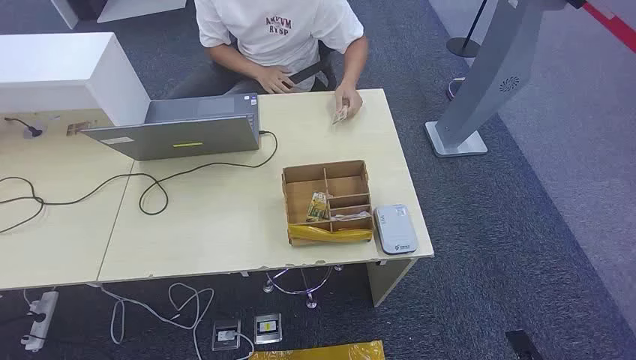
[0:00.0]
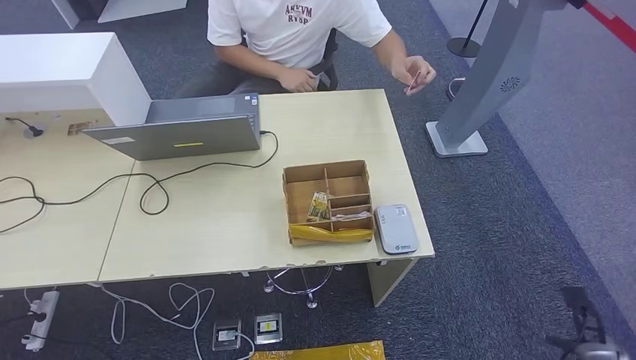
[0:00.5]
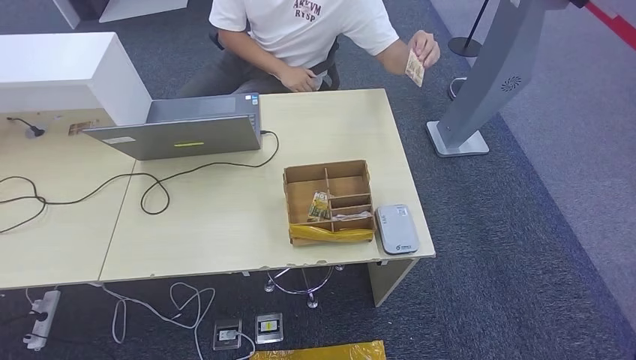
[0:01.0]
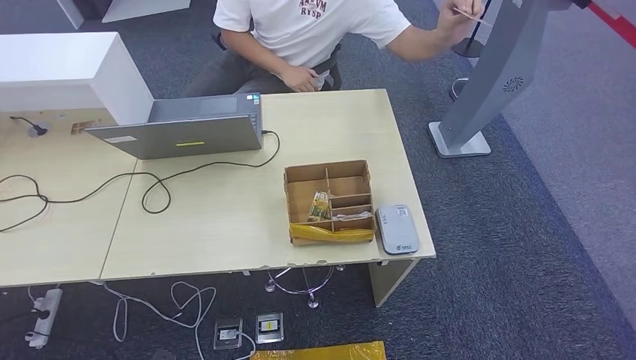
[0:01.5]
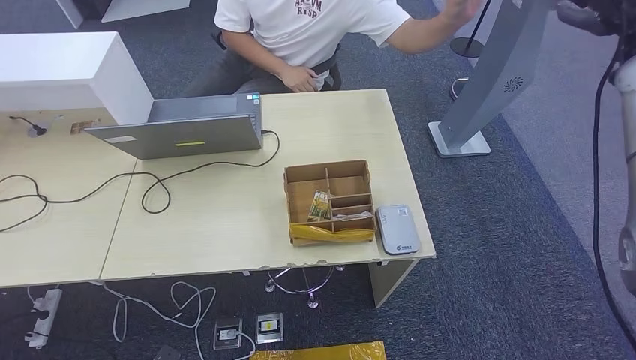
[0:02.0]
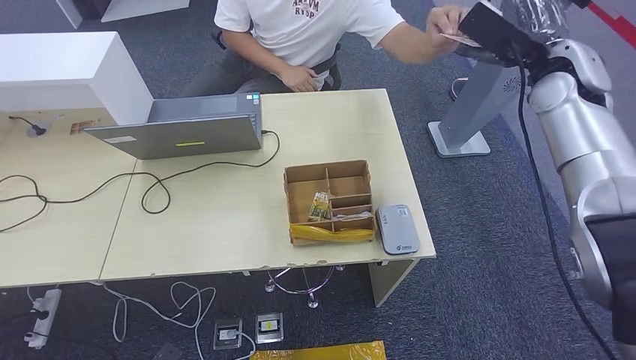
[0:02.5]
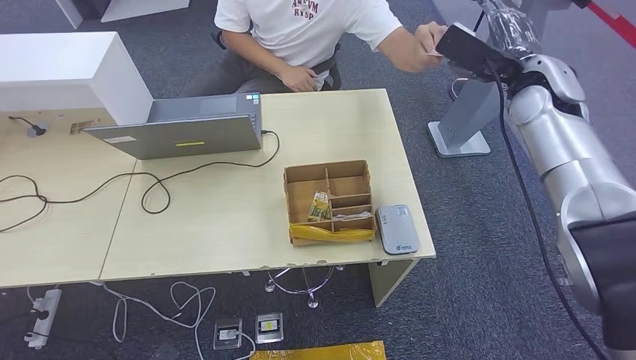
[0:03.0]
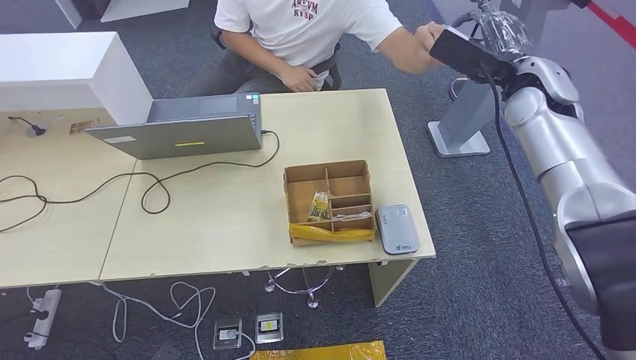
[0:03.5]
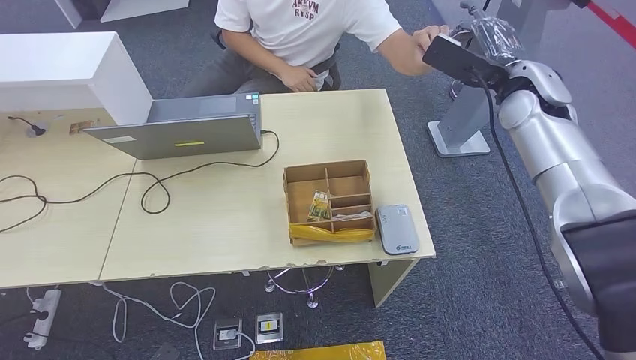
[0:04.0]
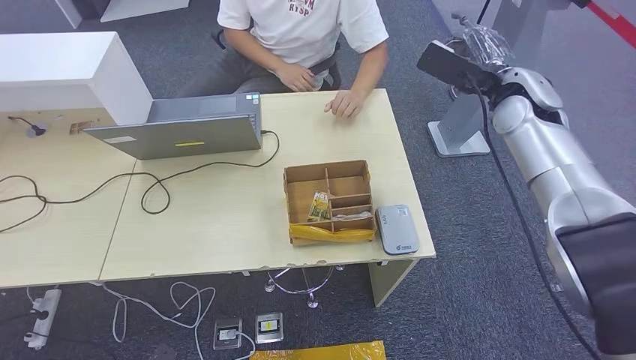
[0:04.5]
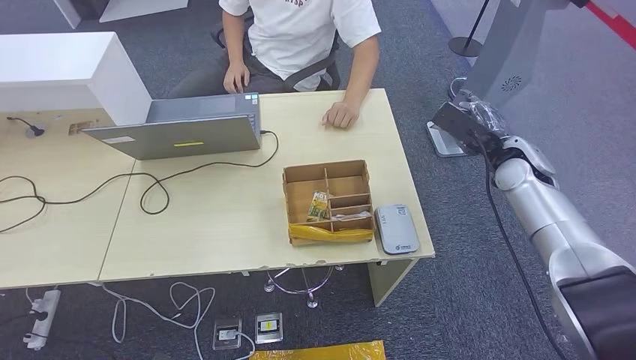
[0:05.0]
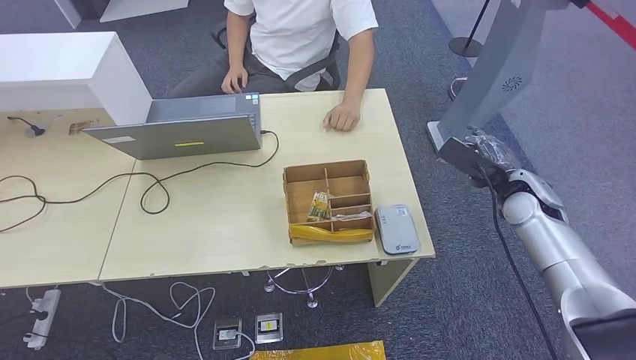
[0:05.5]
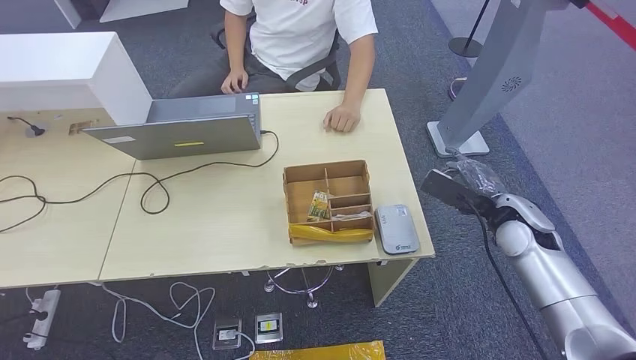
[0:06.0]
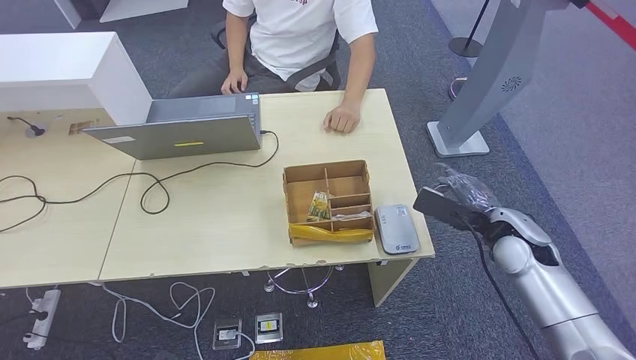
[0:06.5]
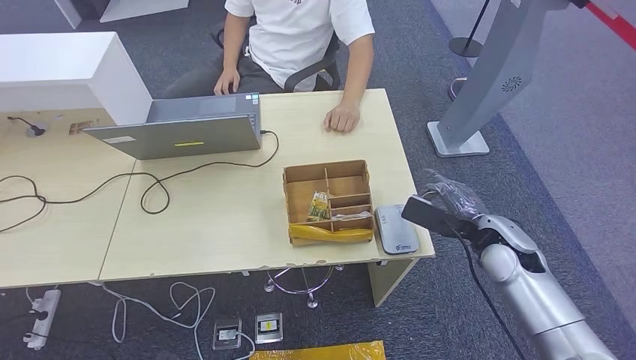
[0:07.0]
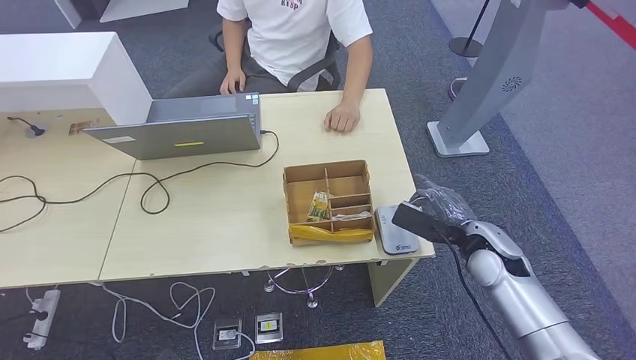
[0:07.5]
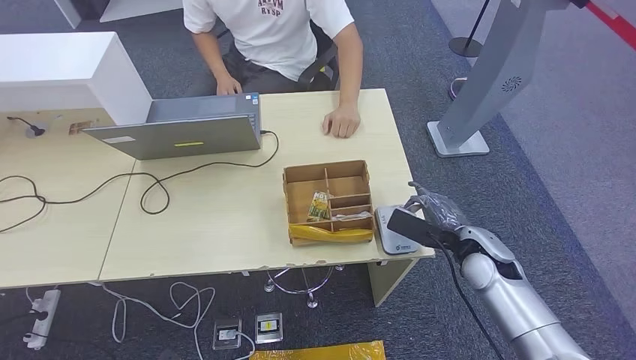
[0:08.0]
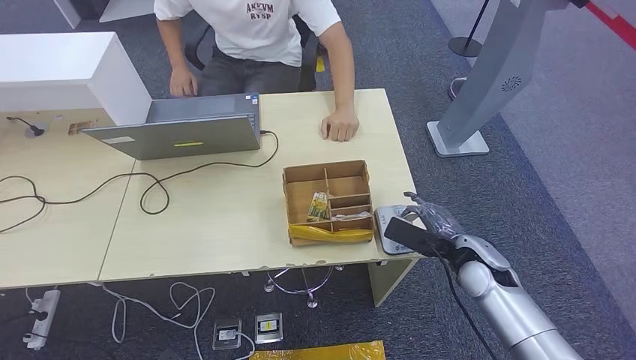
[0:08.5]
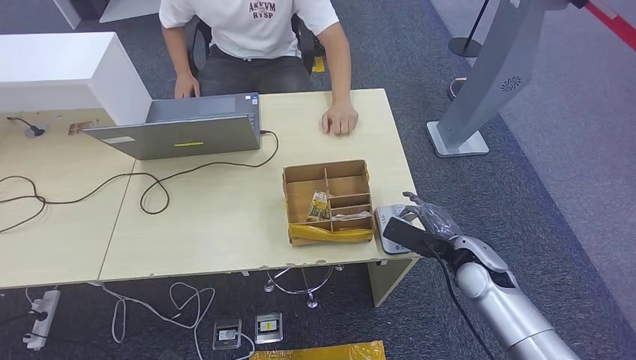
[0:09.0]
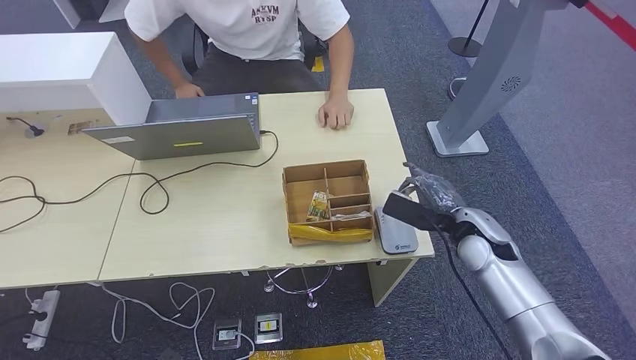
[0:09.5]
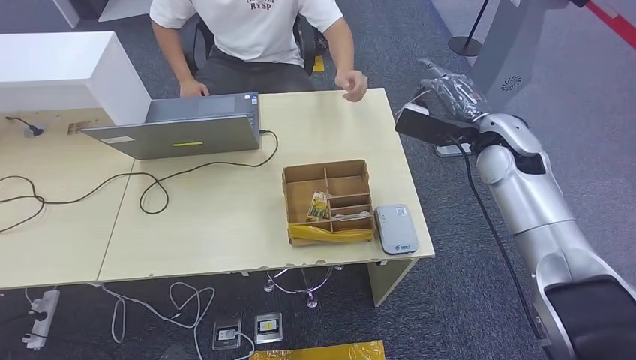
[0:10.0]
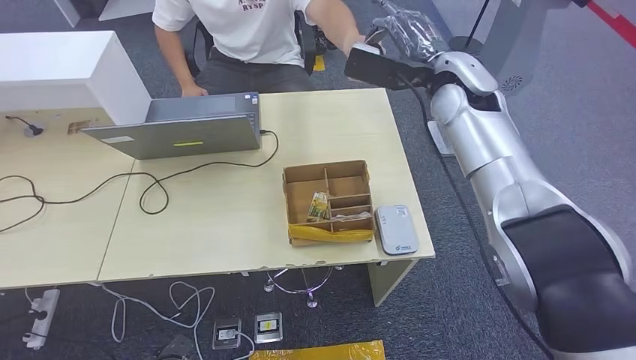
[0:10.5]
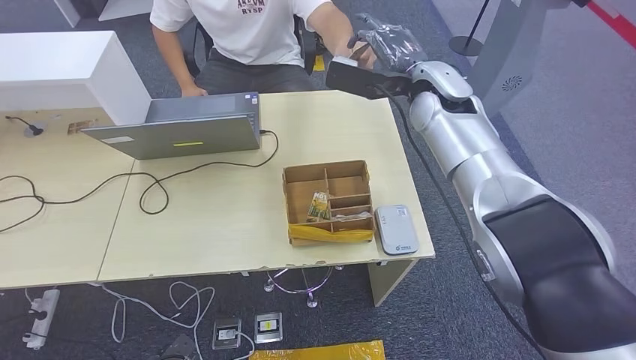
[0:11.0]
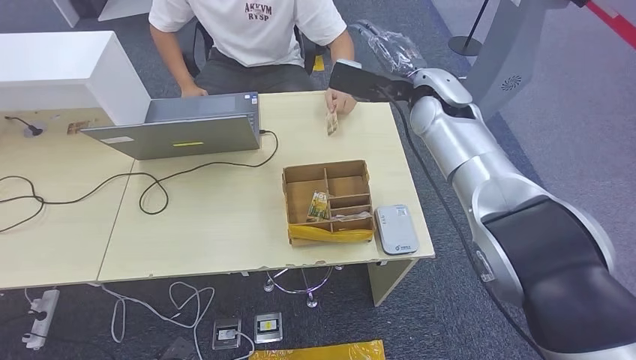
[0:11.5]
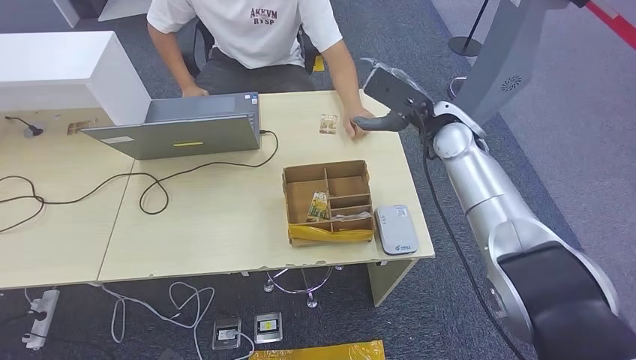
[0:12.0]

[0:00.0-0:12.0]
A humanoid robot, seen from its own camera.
Step, 0:00.0 to 0:04.5: Take the ID card from the person's hand.
Step, 0:05.0 to 0:08.5: Place the ID card on the card reader.
0:02.0 to 0:04.0: The right hand heads to the left and downward, covering approximately 15 cm.
0:04.0 to 0:06.0: The right hand moves downward and backward, approximately 20 cm.
0:06.0 to 0:08.0: The right hand shifts about 5 cm to the left.
0:08.0 to 0:10.0: The right hand heads upward and forward, covering approximately 20 cm.
0:10.0 to 0:12.0: The right hand heads to the left, covering about 5 cm.

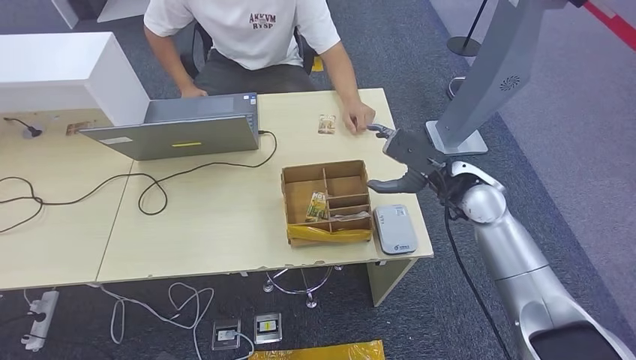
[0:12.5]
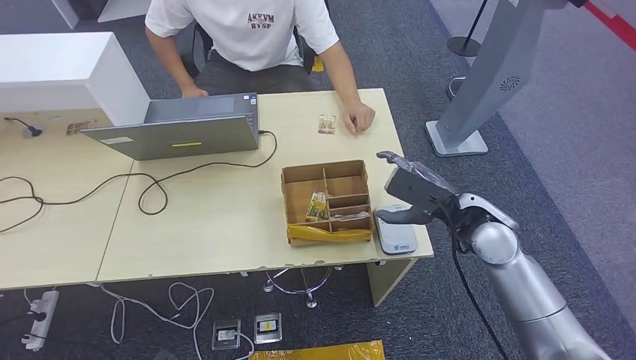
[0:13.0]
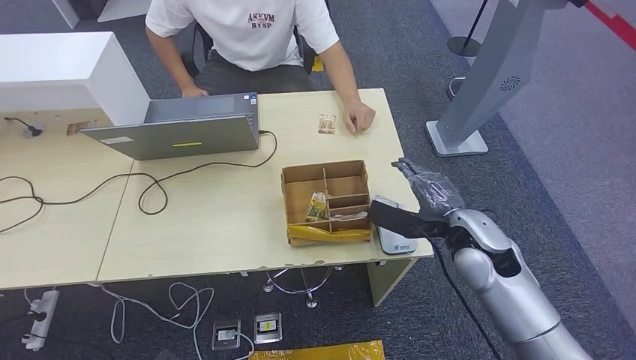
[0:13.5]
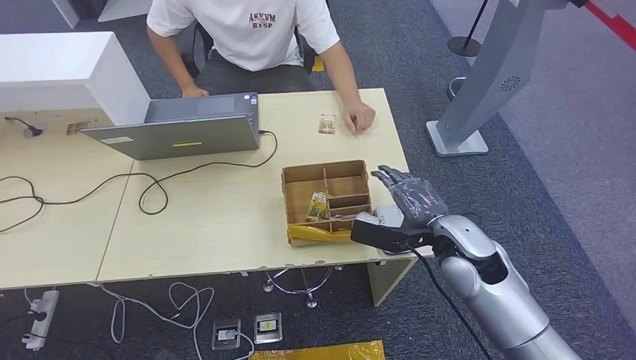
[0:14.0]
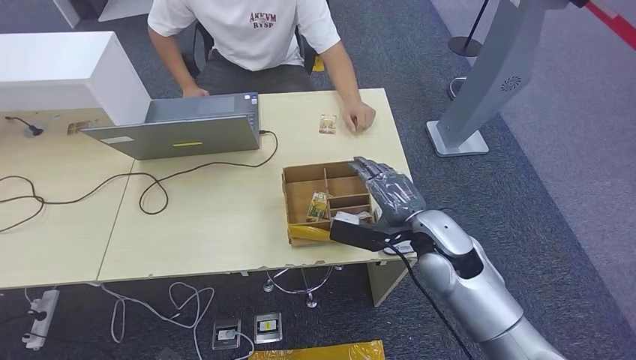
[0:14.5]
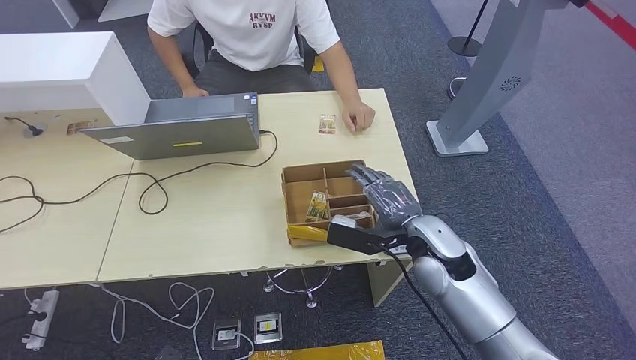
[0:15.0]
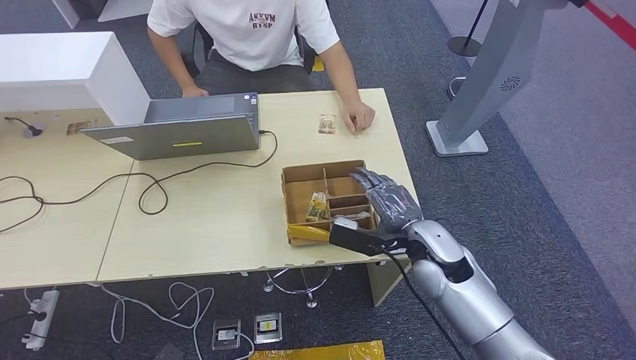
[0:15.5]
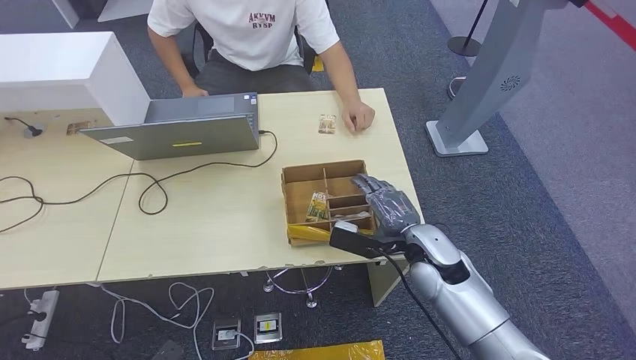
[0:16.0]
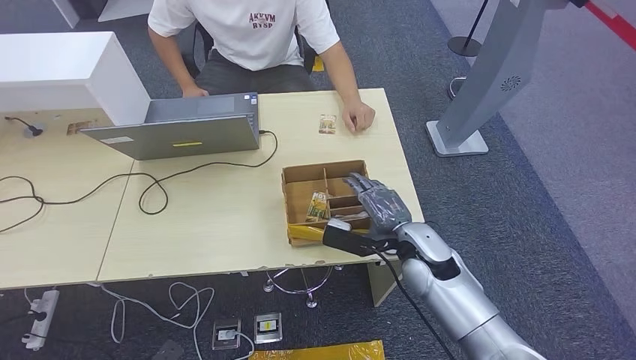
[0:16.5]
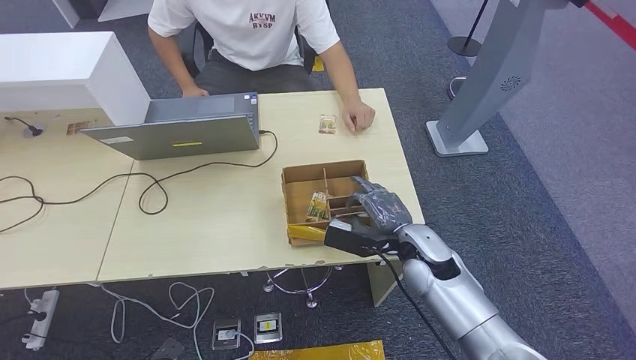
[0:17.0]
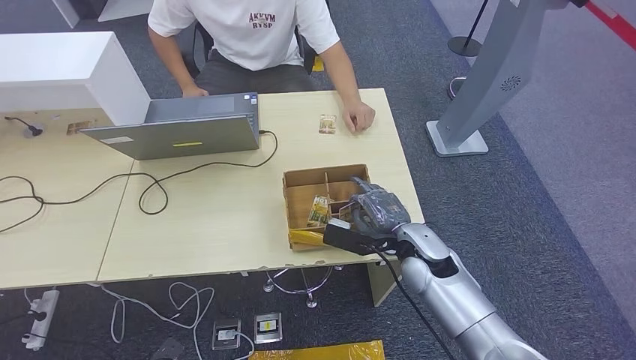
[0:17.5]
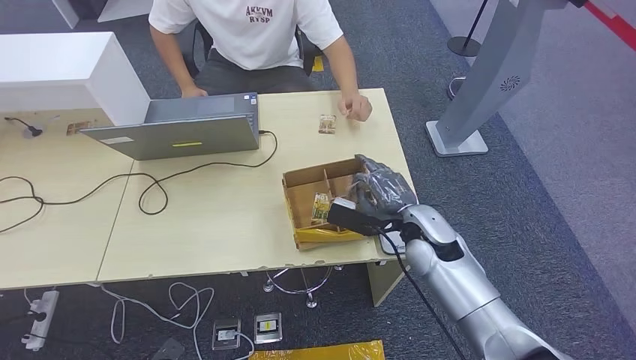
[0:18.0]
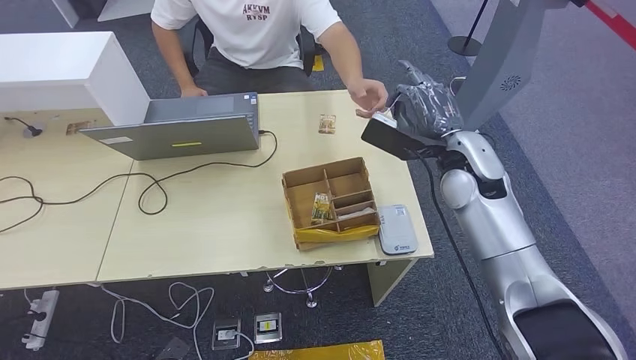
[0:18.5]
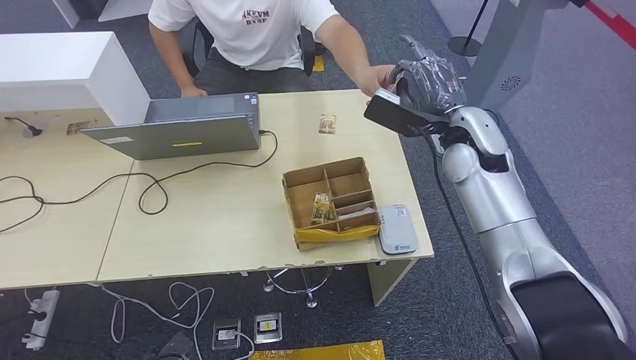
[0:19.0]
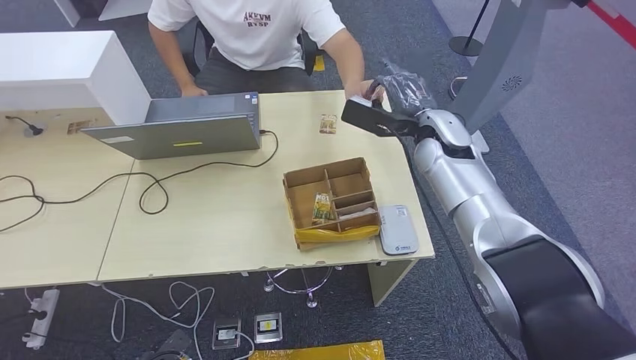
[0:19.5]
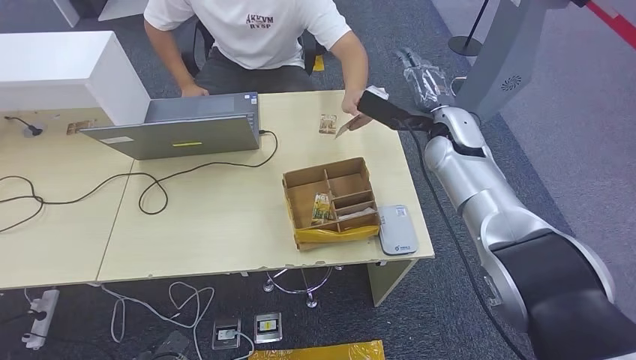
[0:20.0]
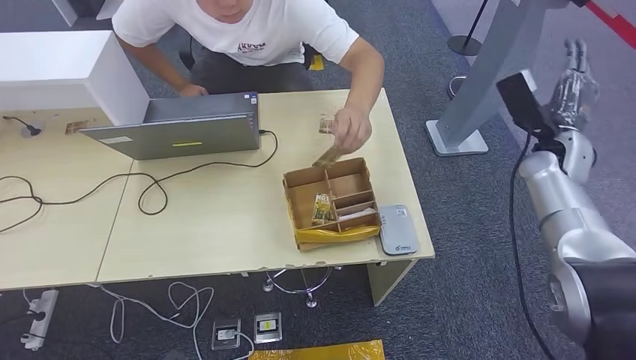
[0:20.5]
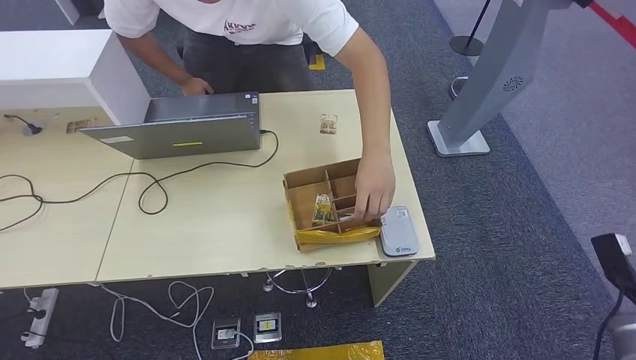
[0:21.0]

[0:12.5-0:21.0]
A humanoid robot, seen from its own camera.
Step, 0:12.5 to 0:18.0: Pick up the room key from the key card box.
Step, 0:18.5 to 0:21.0: Hand the room key to the person.
0:12.5 to 0:14.5: The right hand is displaced backward and to the left by approximately 10 cm.
0:14.5 to 0:16.5: The right hand shifts approximately 5 cm downward.
0:16.5 to 0:19.0: The right hand goes some 20 cm upward and forward.
